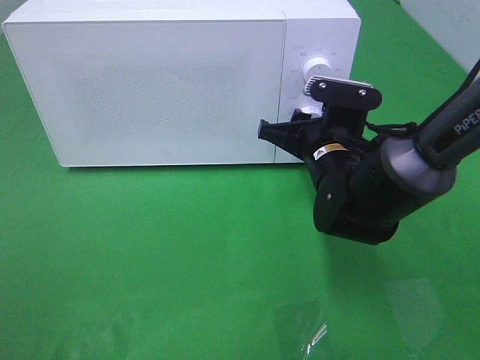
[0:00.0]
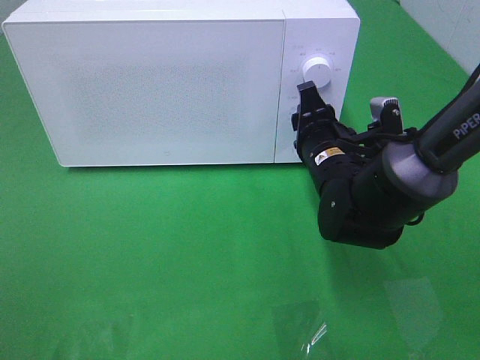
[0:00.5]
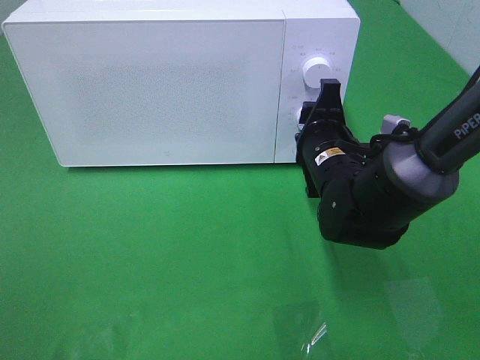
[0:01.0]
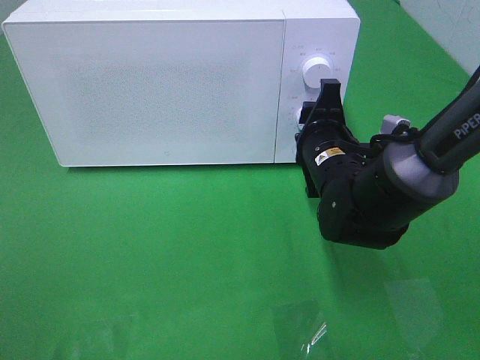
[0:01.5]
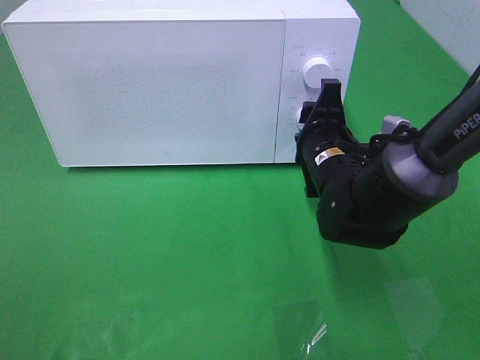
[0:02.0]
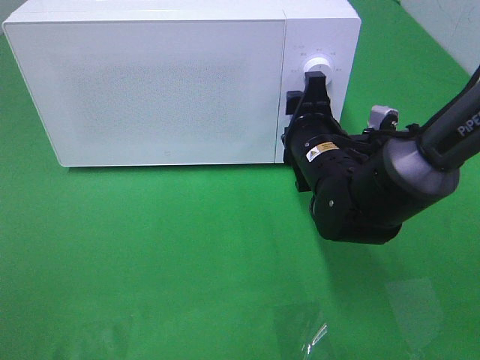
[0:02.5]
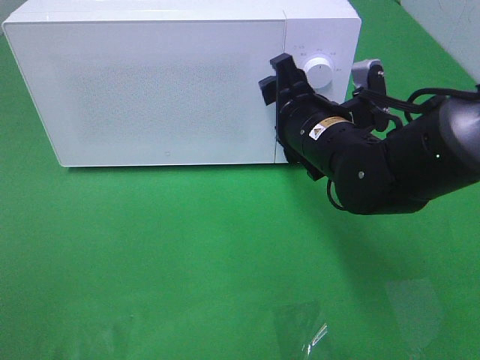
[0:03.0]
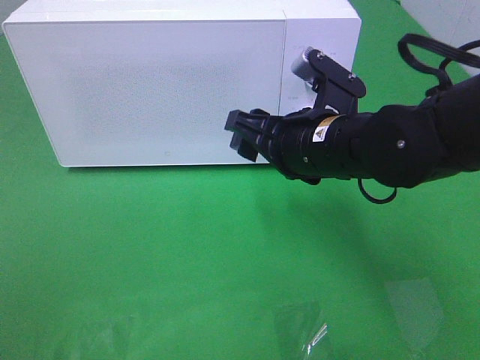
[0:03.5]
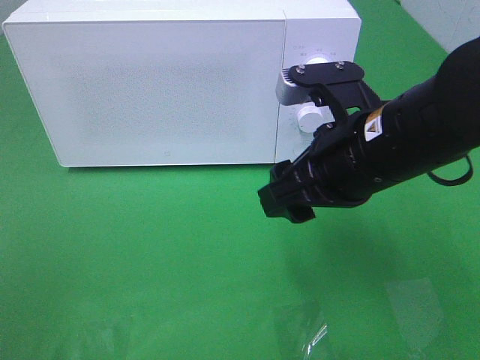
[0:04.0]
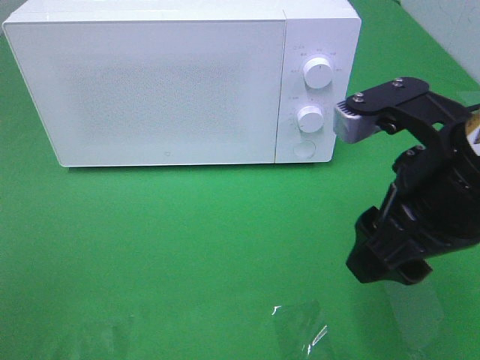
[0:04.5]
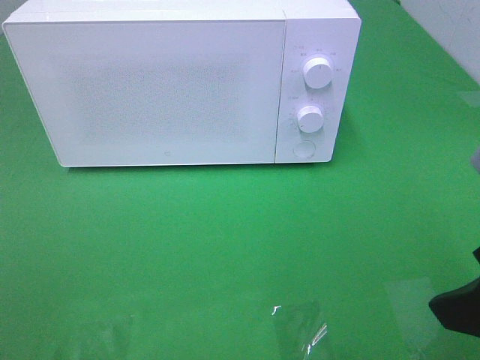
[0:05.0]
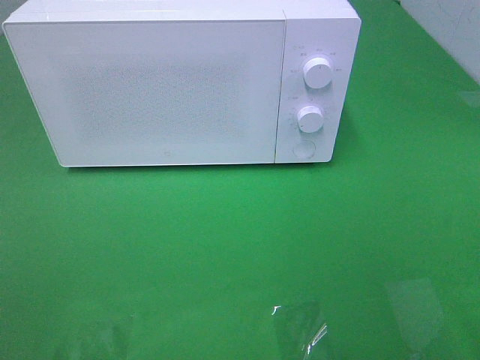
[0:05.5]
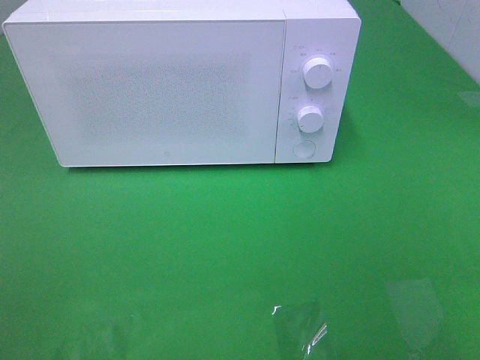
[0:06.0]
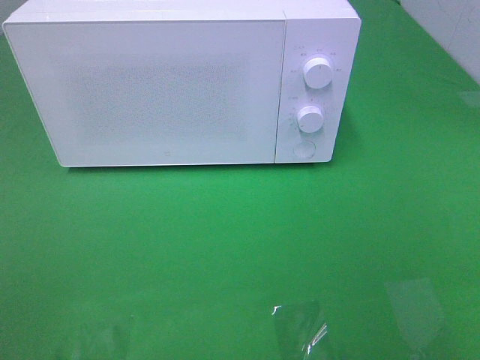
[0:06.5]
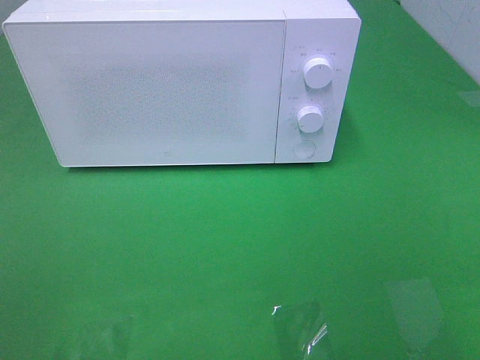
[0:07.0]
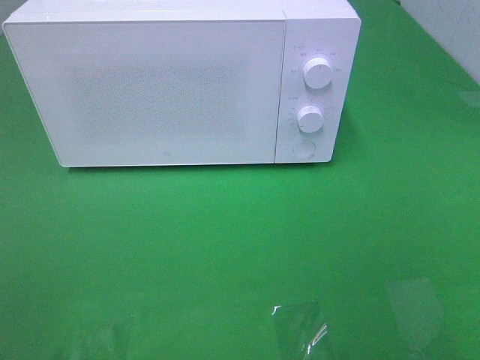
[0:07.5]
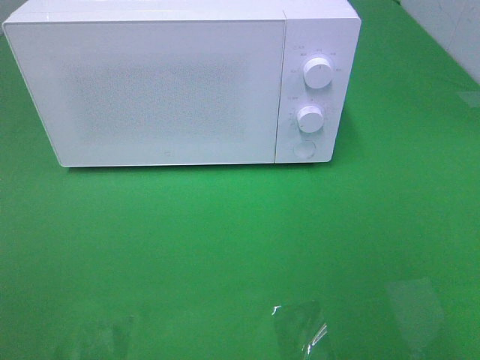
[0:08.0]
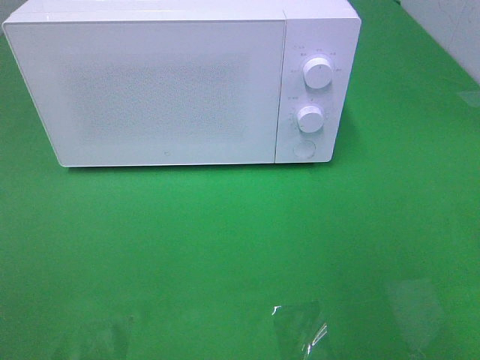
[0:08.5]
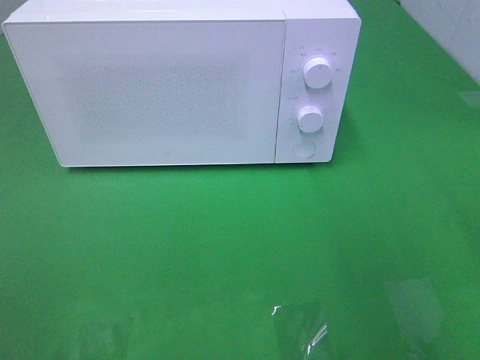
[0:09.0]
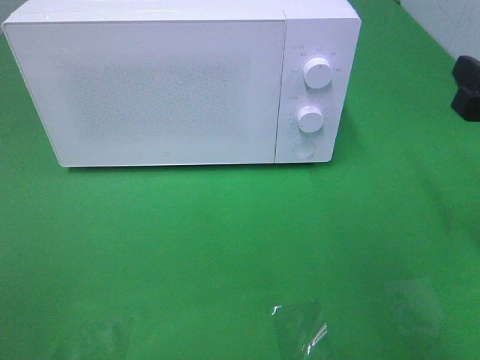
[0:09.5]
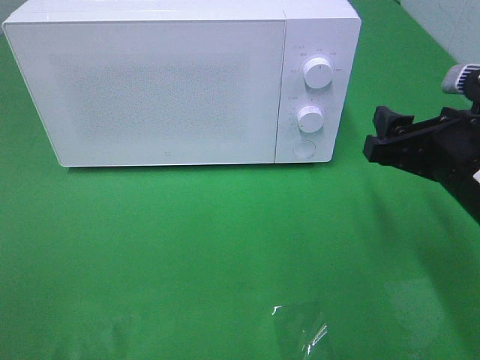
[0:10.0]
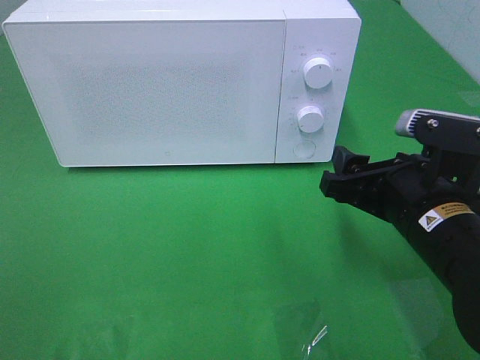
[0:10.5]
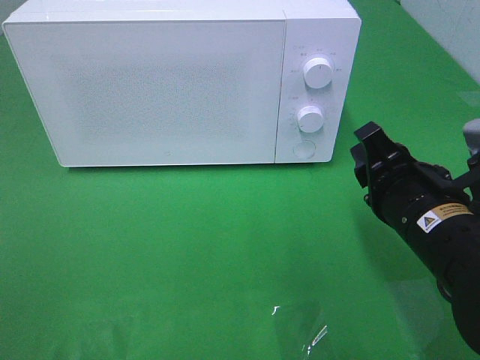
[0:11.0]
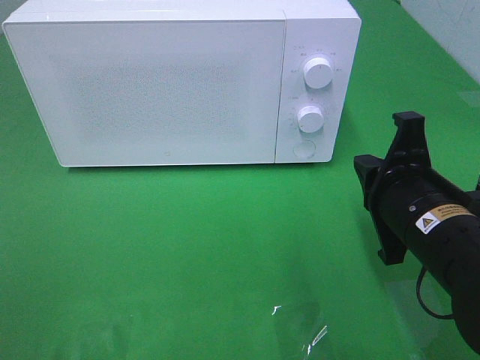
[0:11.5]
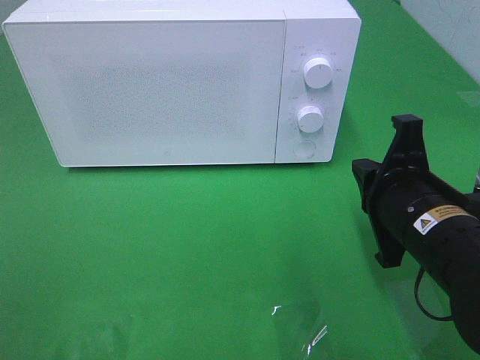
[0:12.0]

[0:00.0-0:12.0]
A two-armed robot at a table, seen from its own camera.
Task of the whole recording: Heat the burger.
Step, 0:00.0 to 0:02.0: Right hand: twist timer button.
0:02.0 to 0:04.0: The right gripper travels upward and backward by about 15 cm.
0:04.0 to 0:06.0: The right gripper goes roughly 30 cm backward and to the right.
0:08.0 to 0:10.0: The right gripper is displaced forward, downward and to the left by roughly 20 cm.
0:10.0 to 0:12.0: The right gripper ends up about 5 cm from where it was, and closes its fingers.

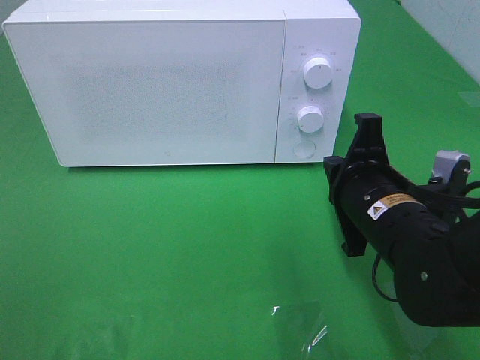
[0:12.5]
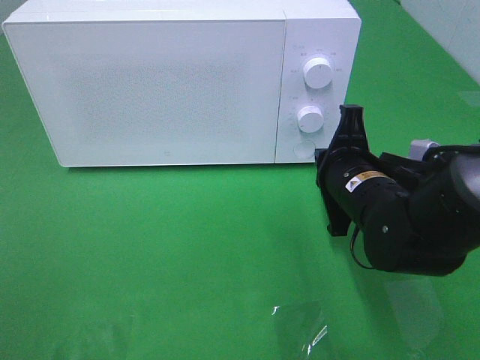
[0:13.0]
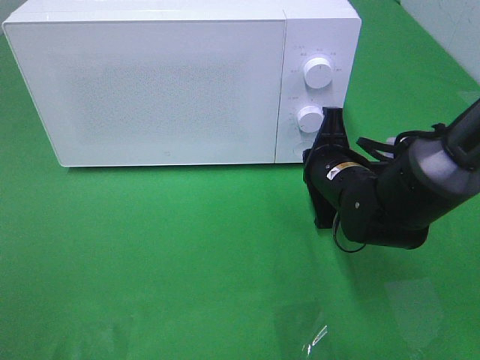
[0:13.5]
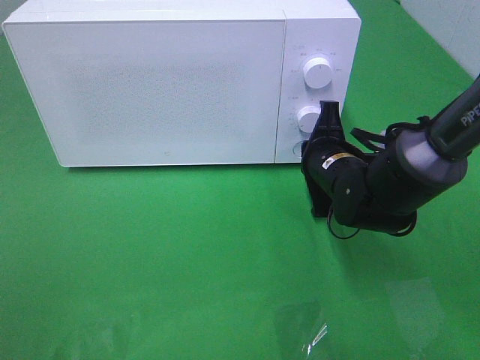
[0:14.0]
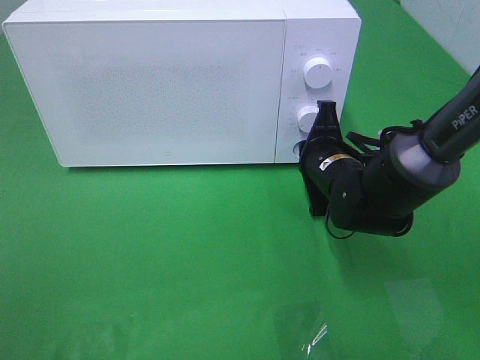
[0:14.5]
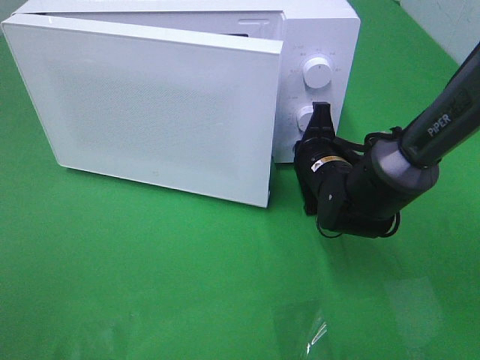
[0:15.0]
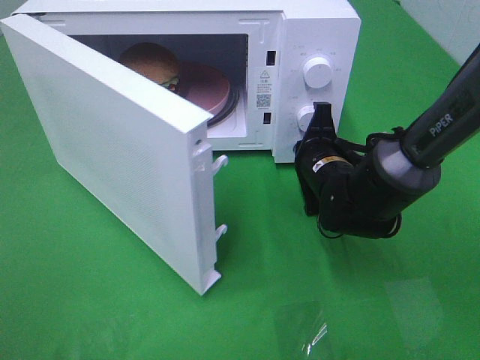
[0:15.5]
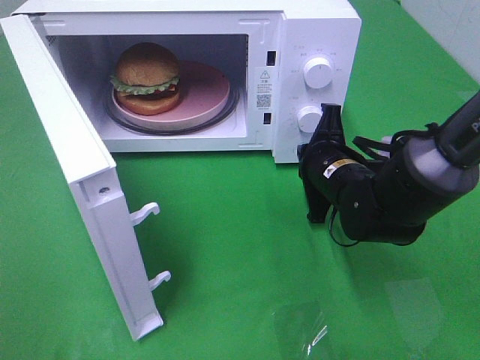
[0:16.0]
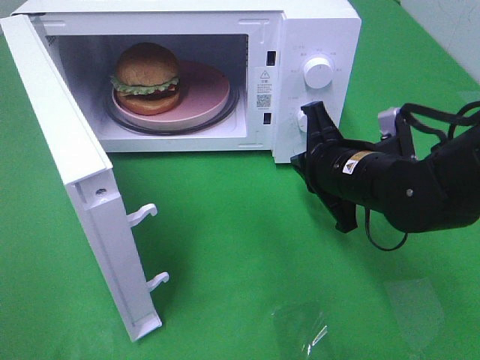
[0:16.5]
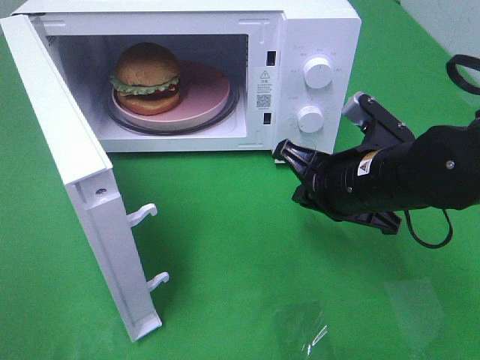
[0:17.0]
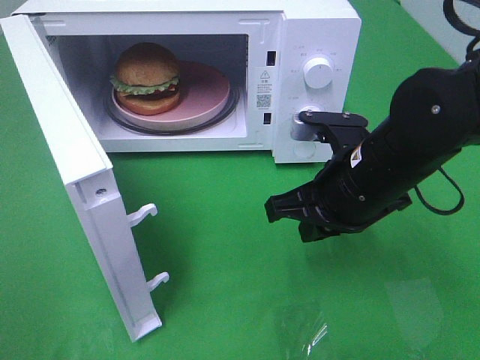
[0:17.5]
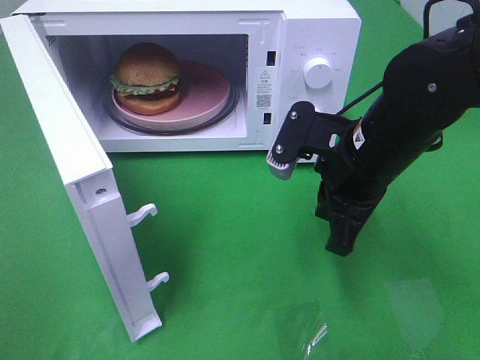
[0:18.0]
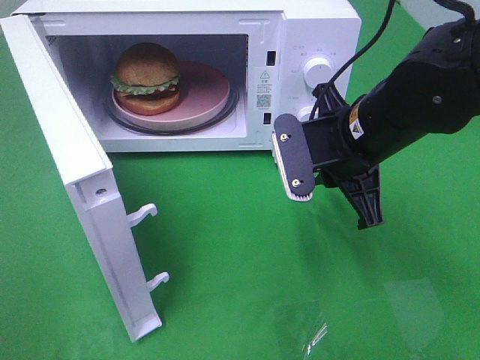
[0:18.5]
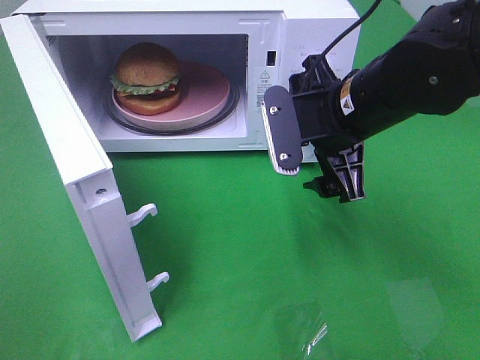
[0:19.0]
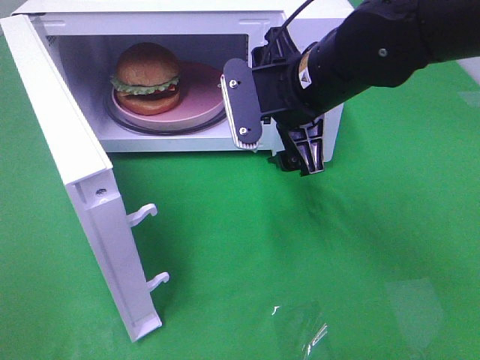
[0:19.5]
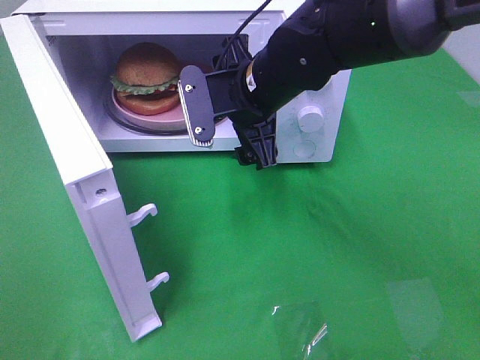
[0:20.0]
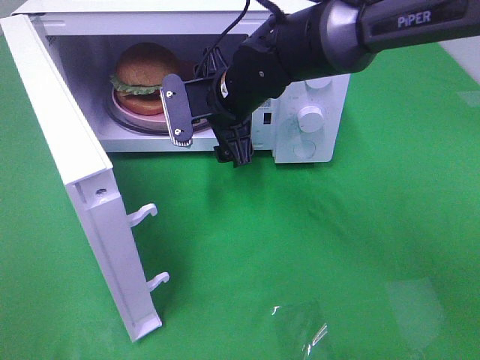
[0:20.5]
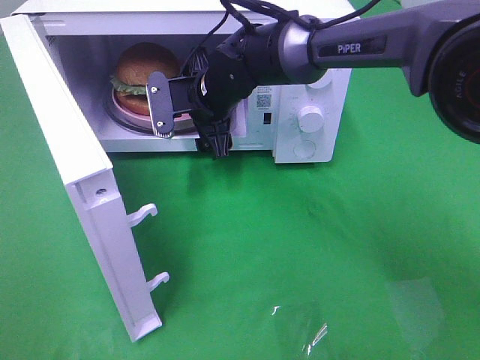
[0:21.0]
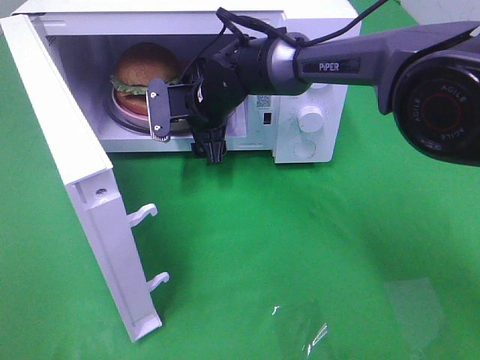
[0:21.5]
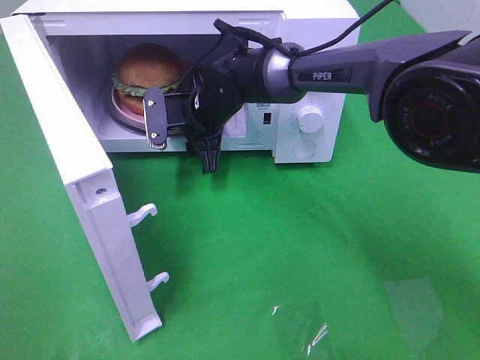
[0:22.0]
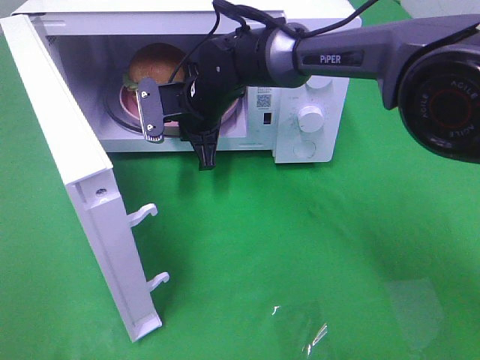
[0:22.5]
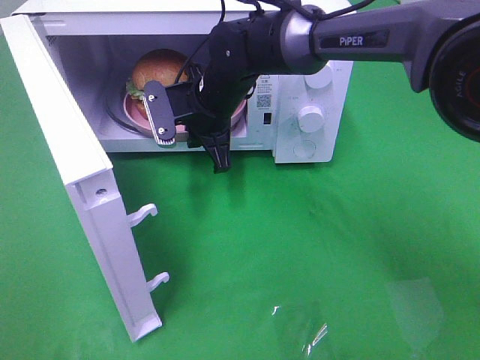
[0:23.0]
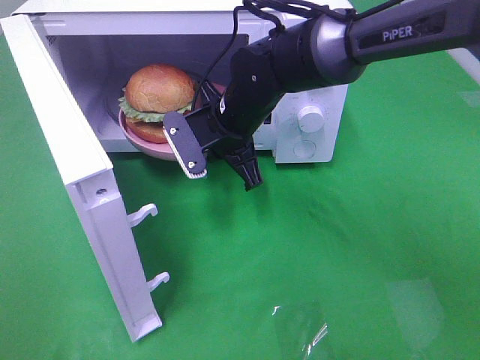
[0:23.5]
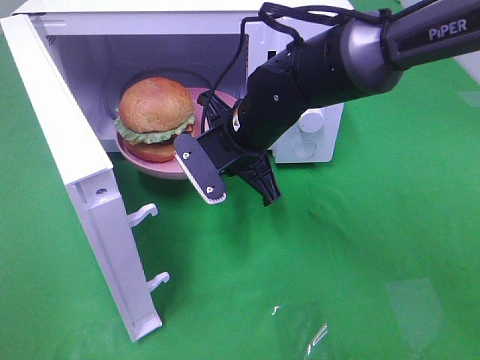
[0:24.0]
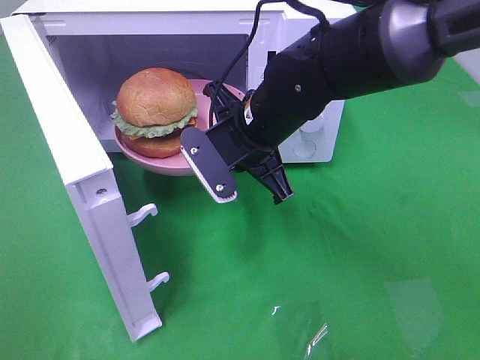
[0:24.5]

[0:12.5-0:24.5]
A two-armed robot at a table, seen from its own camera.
Task of the whole recording: Heat the burger.
Step, 0:12.5 to 0:15.5: Right hand: press the switch.
Step, 0:16.0 to 0:22.0: Right hand: grab the plate with the hamburger.
0:12.5 to 0:14.5: The right gripper shifts roughly 10 cm forward.
0:14.5 to 0:16.5: The right gripper moves backward and upward, roughly 10 cm.
0:16.5 to 0:18.5: The right gripper is displaced upward by about 5 cm.
0:18.5 to 0:20.5: The right gripper moves to the left and forward, approximately 15 cm, and opens up.
0:20.5 to 0:22.5: The right gripper shifts by some 5 cm, and closes up.
0:22.5 to 0:24.5: The right gripper is displaced backward and to the right by roughly 10 cm.

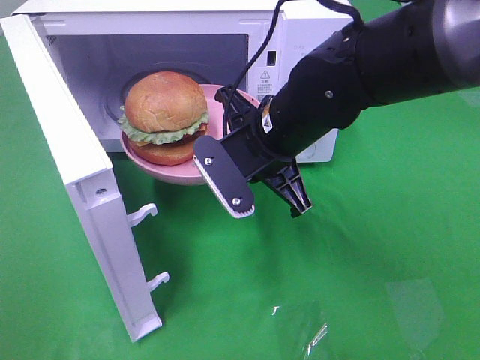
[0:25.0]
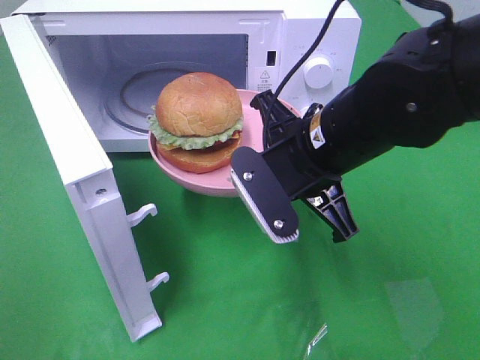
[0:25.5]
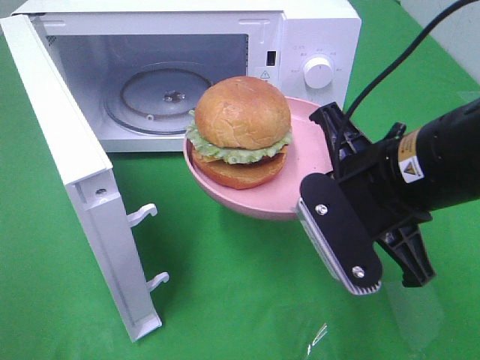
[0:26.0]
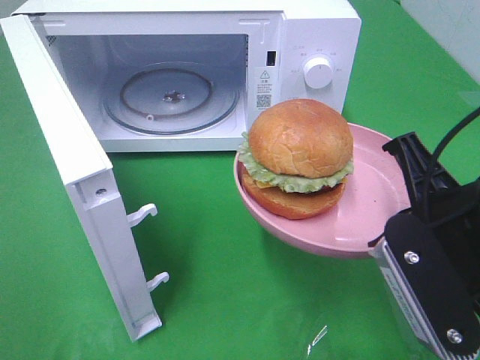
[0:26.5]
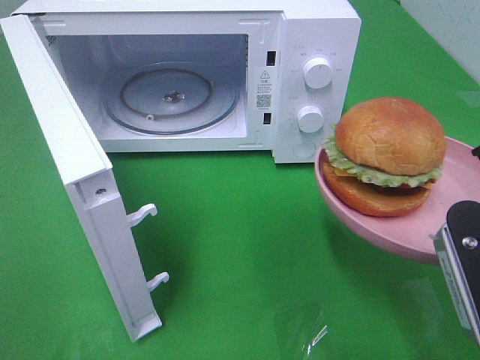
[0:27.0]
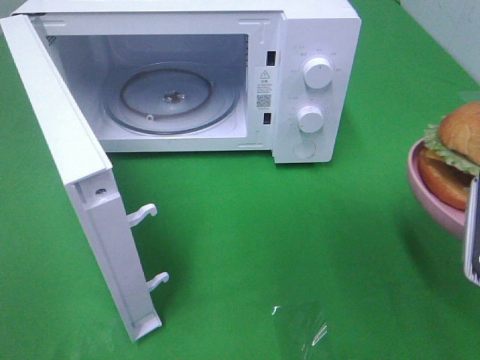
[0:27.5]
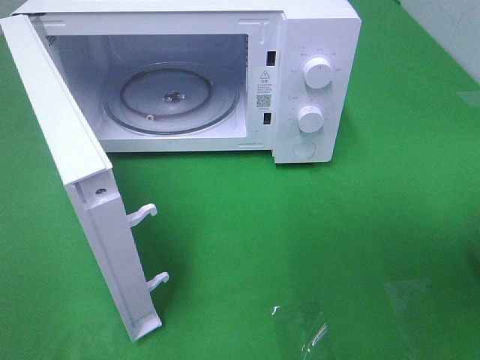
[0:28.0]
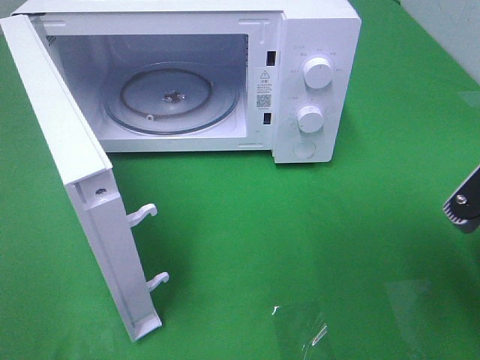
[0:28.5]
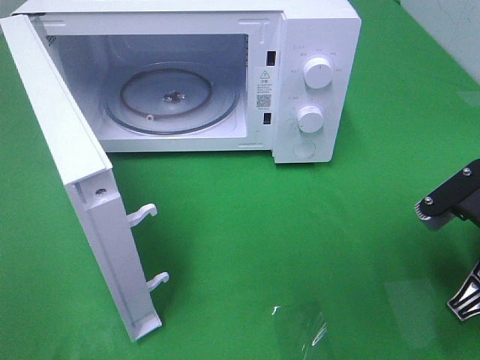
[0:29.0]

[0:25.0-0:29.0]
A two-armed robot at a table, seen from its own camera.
Task of the whole recording: Heat the burger.
0:25.0 to 0:27.0: The right gripper travels backward and to the right by approximately 25 cm.
0:27.0 to 0:29.0: The right gripper travels downward and forward by approximately 10 cm.
